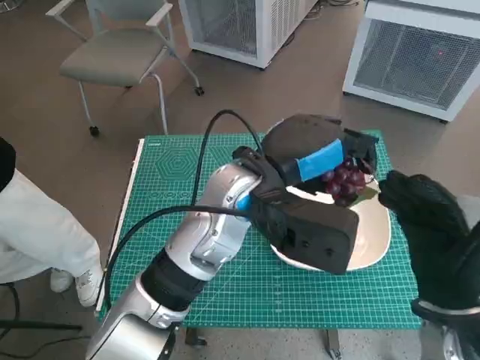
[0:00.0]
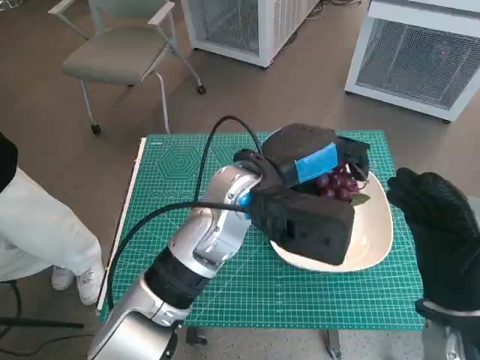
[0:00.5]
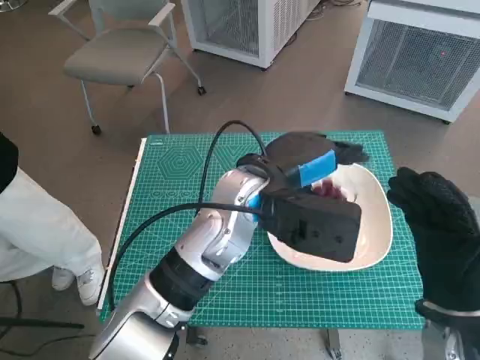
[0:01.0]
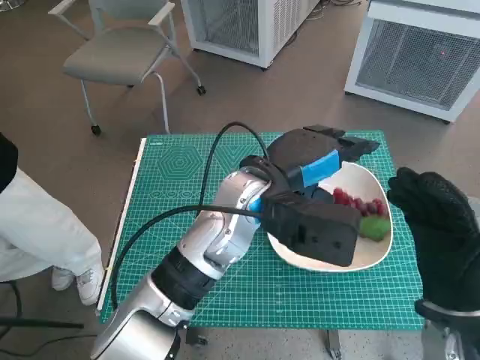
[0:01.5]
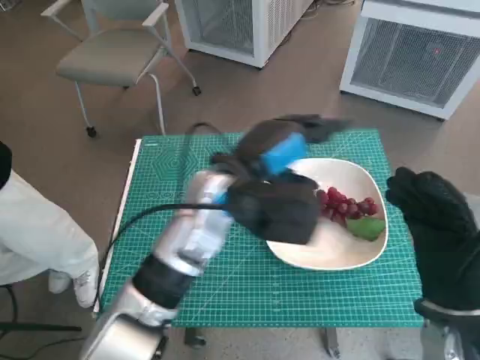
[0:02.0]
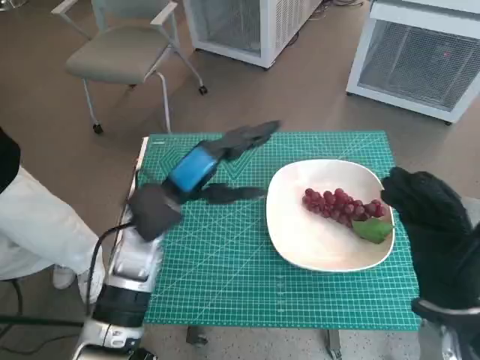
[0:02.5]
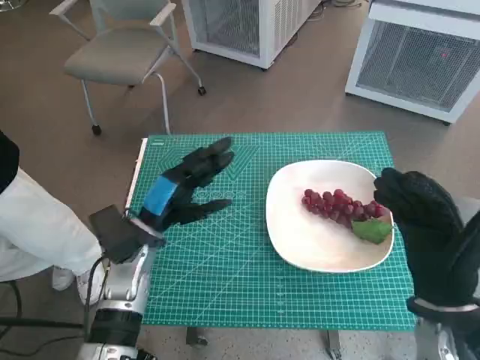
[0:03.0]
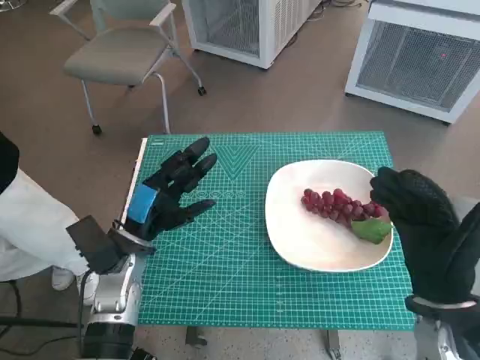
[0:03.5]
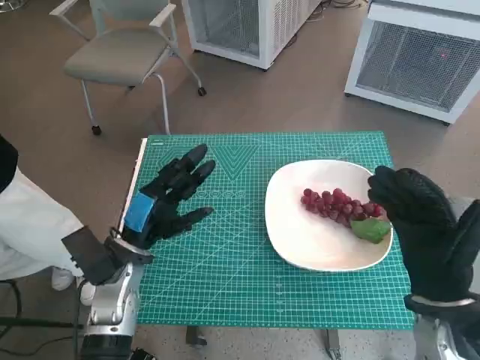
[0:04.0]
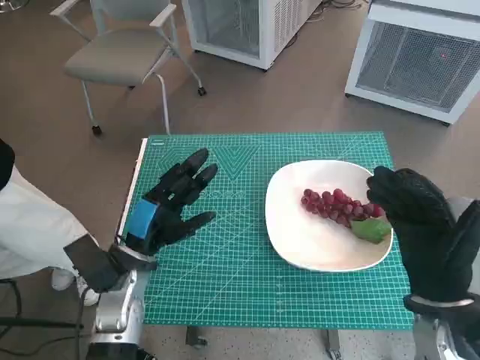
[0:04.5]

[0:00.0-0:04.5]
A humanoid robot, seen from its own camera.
Task of the whole recording: Pick up the grapes and put them on the plate.
0:02.0 to 0:04.5: The left hand is displaced to the left and downward by some 20 cm.

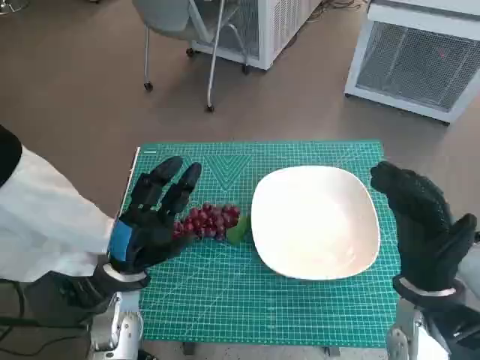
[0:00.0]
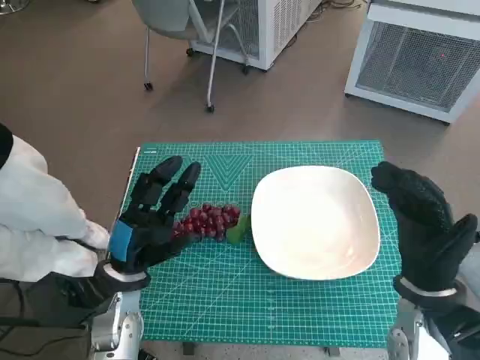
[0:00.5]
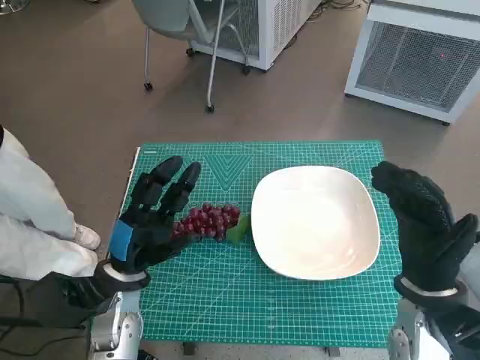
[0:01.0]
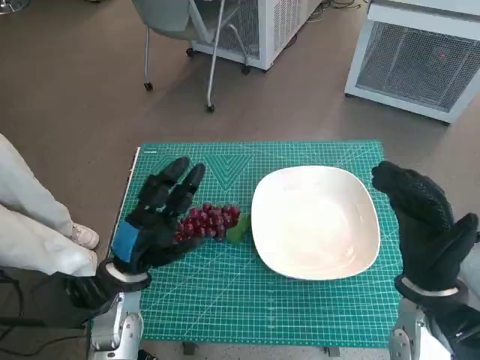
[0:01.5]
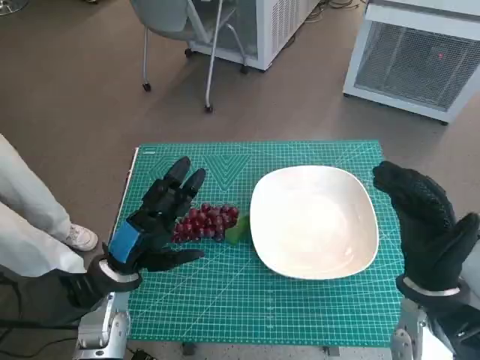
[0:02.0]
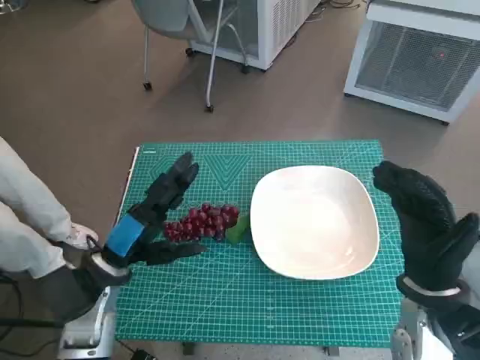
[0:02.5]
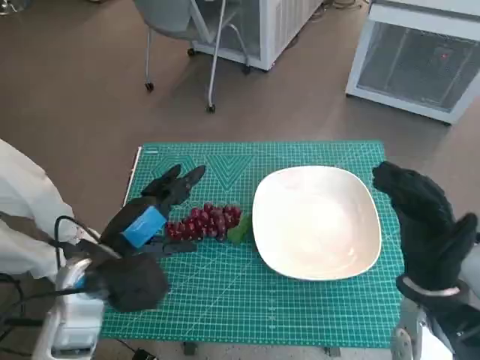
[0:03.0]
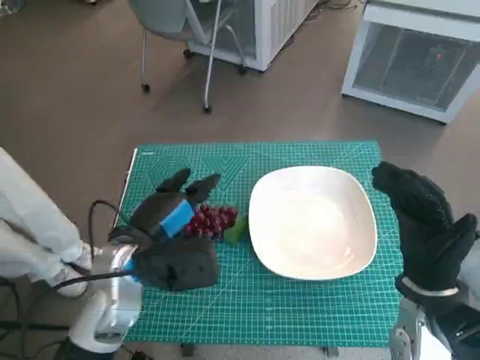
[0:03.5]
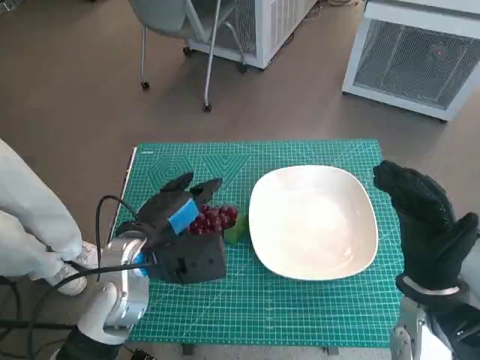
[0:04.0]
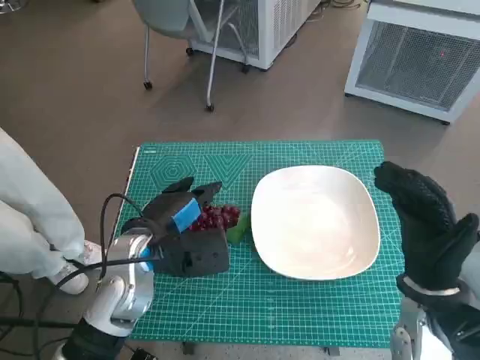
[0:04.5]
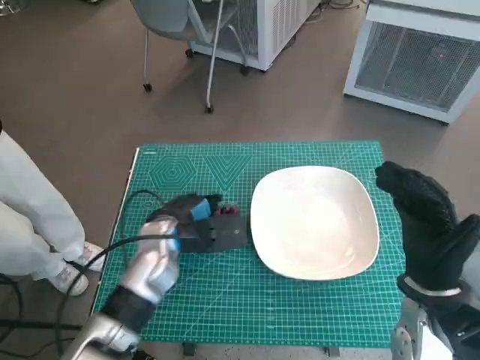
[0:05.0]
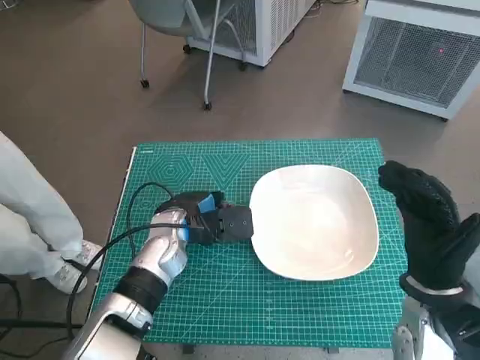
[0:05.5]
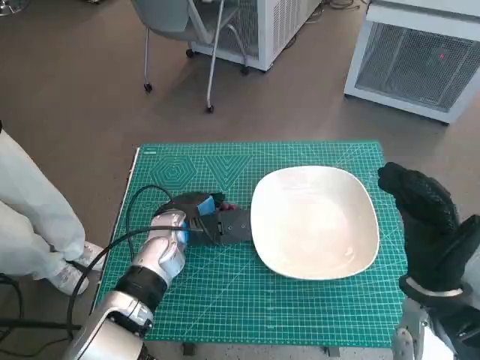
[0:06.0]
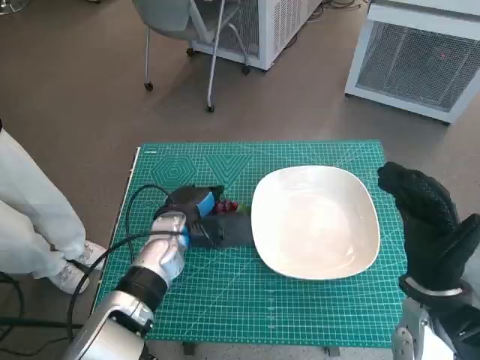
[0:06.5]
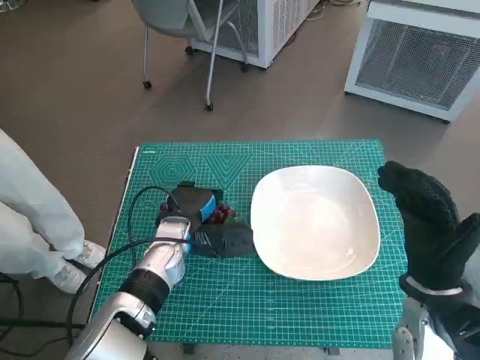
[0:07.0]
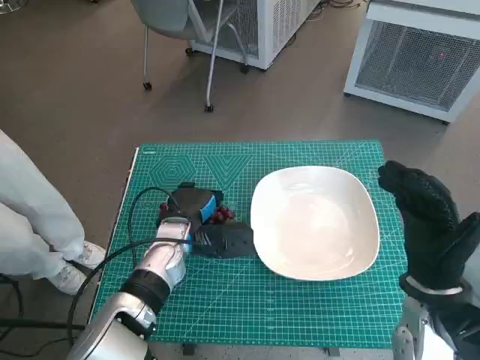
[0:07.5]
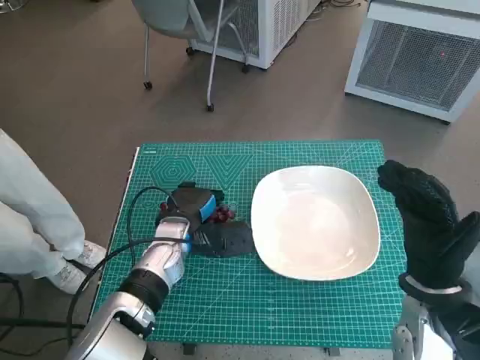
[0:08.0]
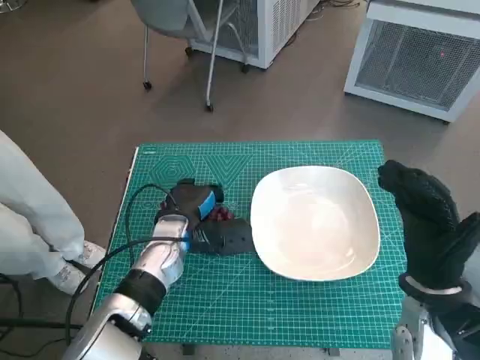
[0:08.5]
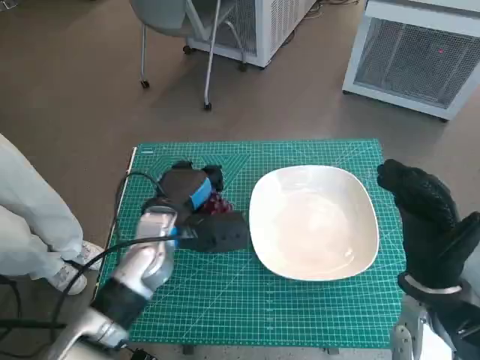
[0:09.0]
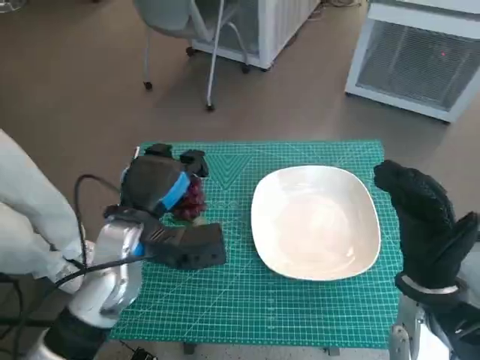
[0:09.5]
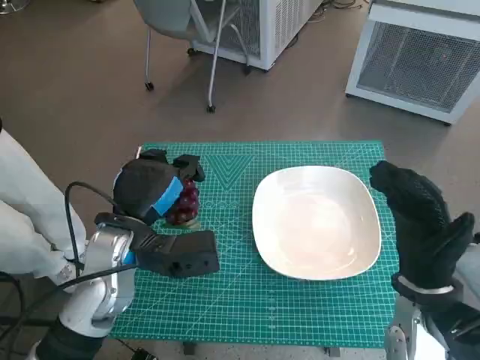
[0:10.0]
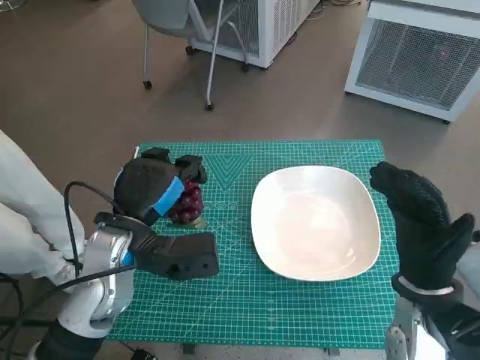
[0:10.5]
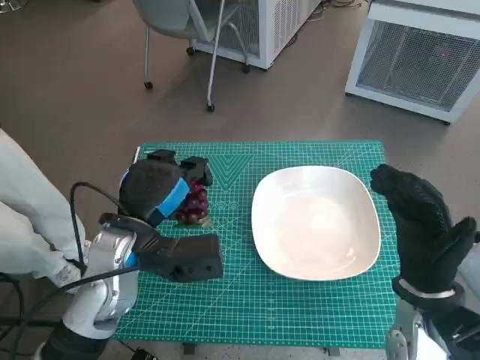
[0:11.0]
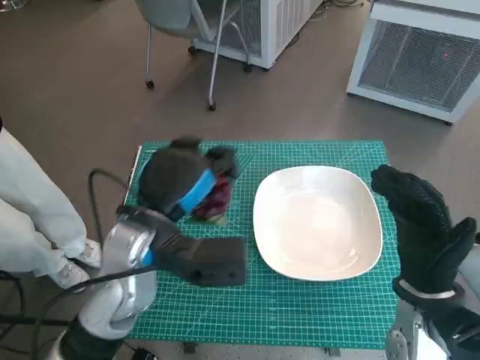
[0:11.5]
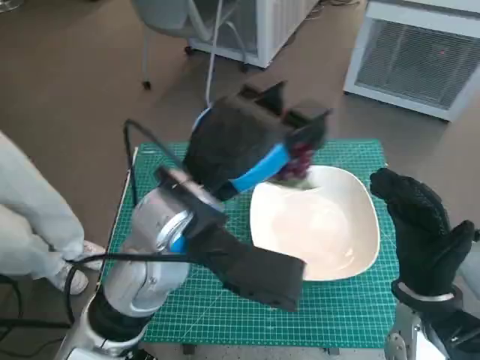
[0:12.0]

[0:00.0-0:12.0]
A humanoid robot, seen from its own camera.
Task of the whole recording: Pick up the grapes and put them on the plate.
Step, 0:00.0 to 0:08.0: Grasp the grapes with left hand.
0:02.0 to 0:04.0: The left hand is displaced upward and to the right by roughly 10 cm.
0:04.0 to 0:06.0: The left hand moves forward and downward, about 10 cm.
0:06.0 to 0:08.0: There are only small adjustments of the hands.
0:08.0 to 0:10.0: The left hand heads upward and backward, covering about 10 cm.
0:10.0 to 0:12.0: The left hand travels to the right and upward by about 15 cm.

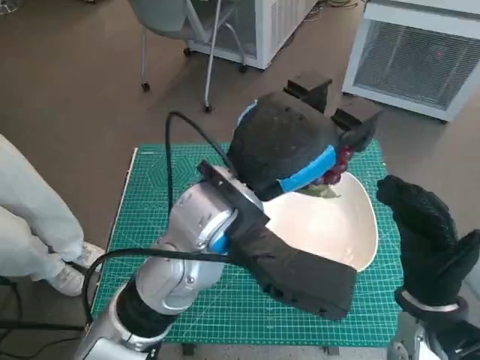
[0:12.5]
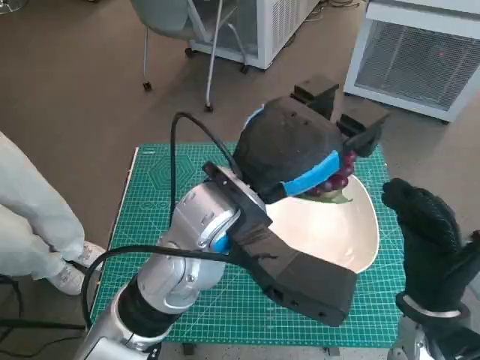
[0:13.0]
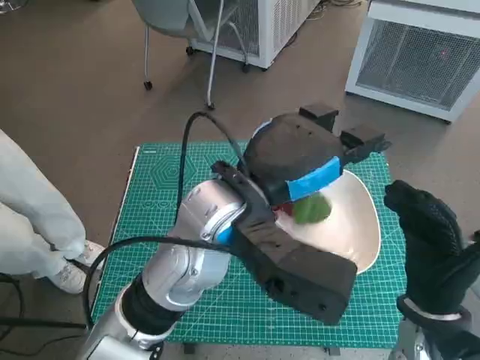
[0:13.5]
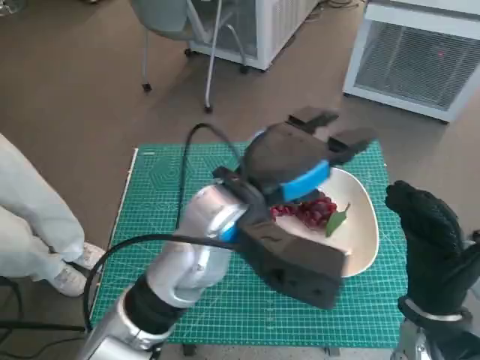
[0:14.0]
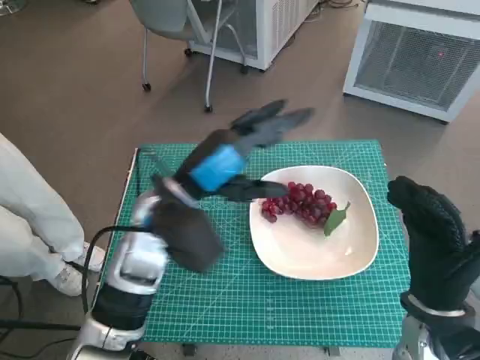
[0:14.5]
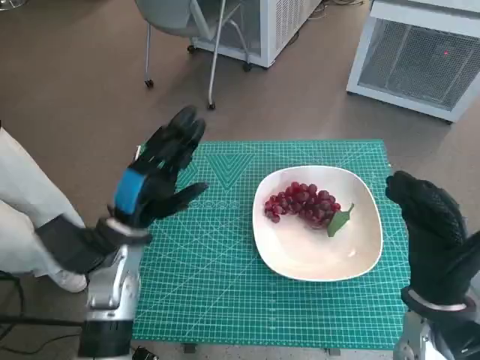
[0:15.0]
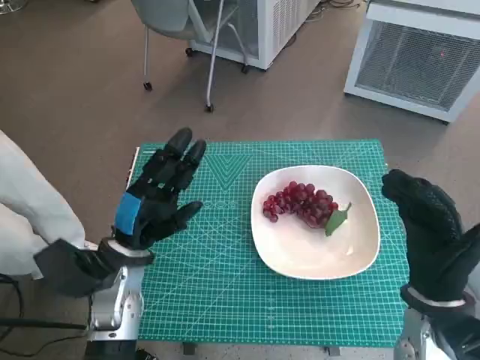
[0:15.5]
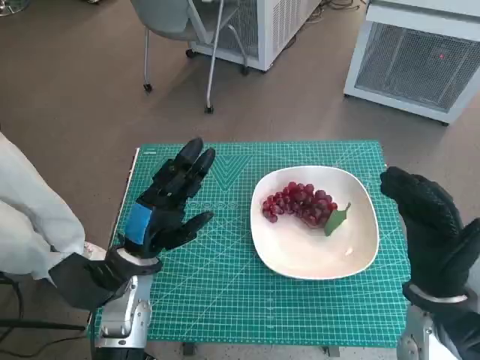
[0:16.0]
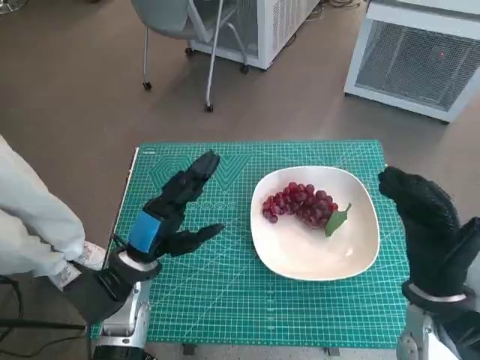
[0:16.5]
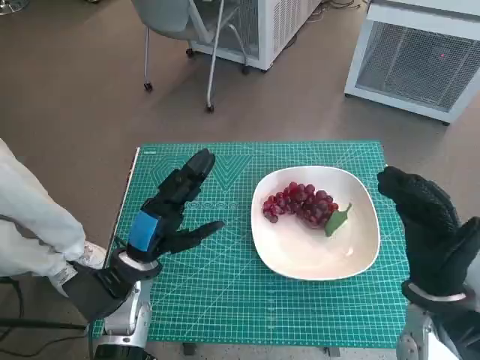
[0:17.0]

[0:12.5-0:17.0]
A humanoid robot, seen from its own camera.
Task of the whole recording: Pick up the grapes and put them on the plate.
0:12.5 to 0:14.5: The left hand is displaced to the left and downward by some 10 cm.
0:14.5 to 0:17.0: The left hand shifts some 15 cm downward and to the left.

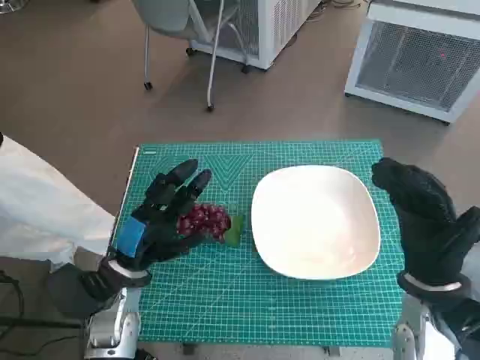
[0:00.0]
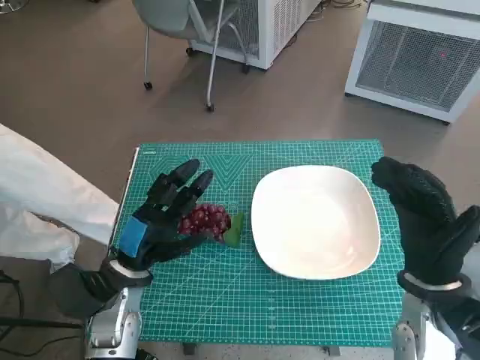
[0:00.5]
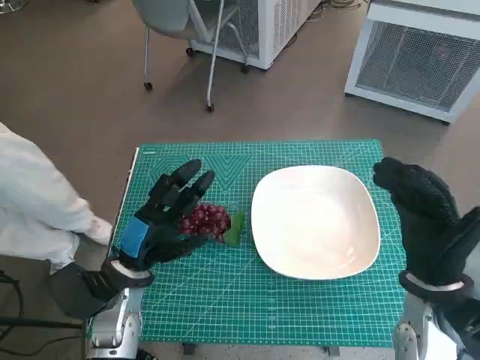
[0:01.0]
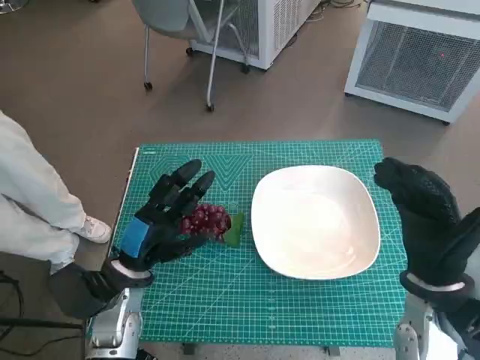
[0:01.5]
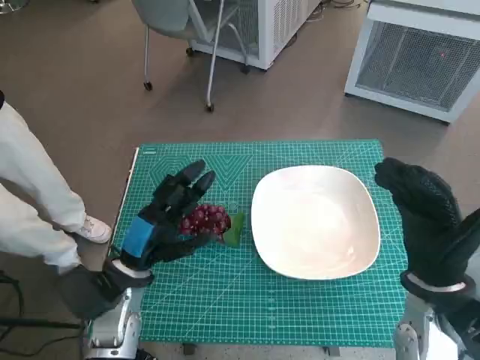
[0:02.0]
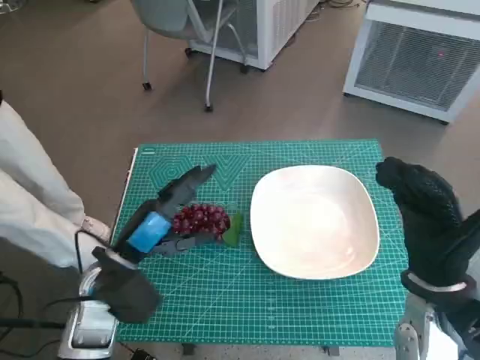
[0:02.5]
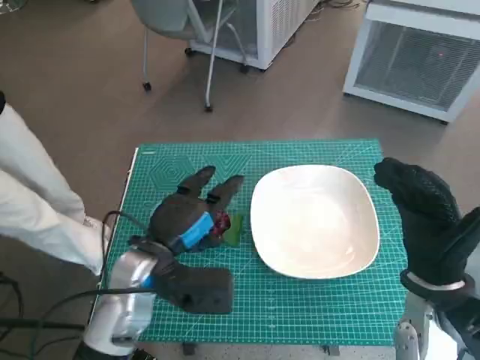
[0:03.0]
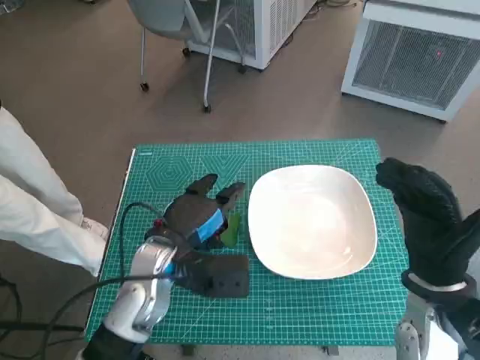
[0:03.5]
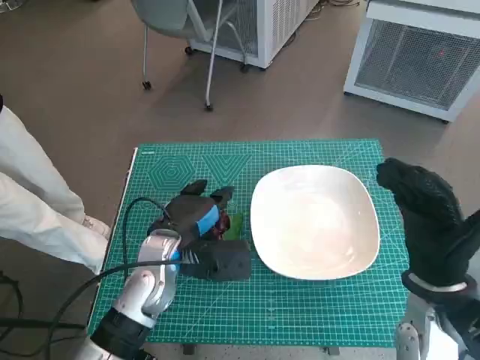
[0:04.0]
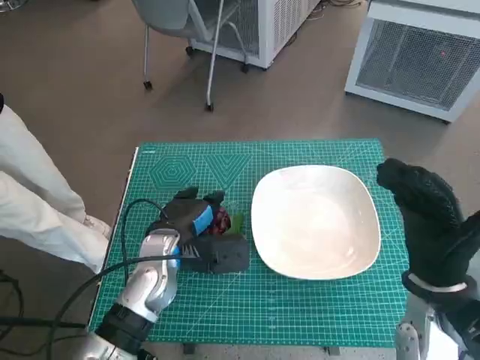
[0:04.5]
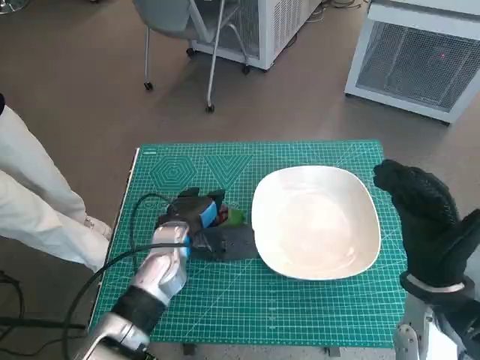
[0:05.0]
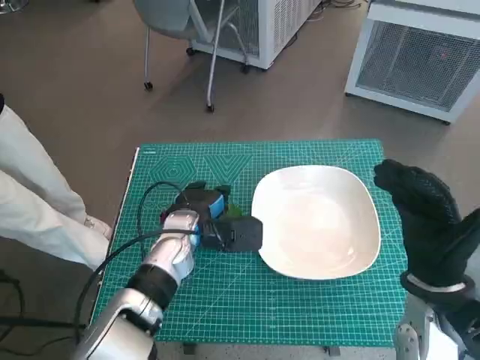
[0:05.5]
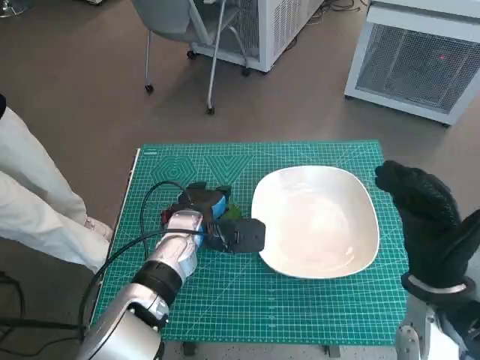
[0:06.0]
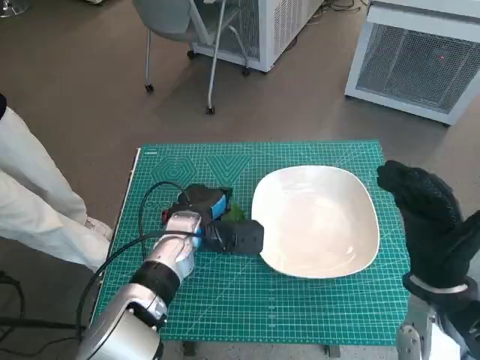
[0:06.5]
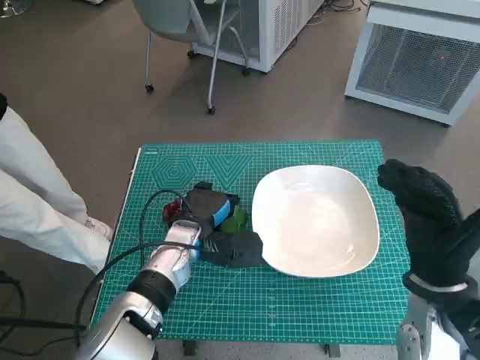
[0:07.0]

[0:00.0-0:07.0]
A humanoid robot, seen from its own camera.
Task of the whole recording: Pick up the grapes and put them on the plate.
0:02.0 to 0:03.5: The left hand is displaced to the right by about 5 cm.
0:03.5 to 0:05.0: The left hand ends up roughly 5 cm from where it was.
0:05.0 to 0:07.0: The hands make only small movements.
